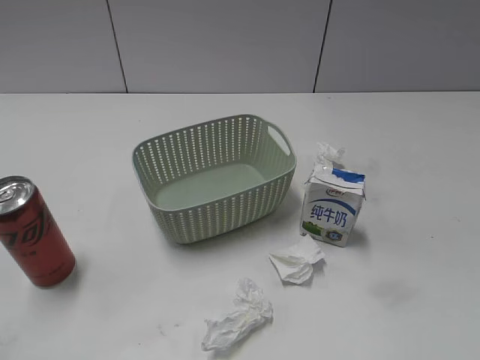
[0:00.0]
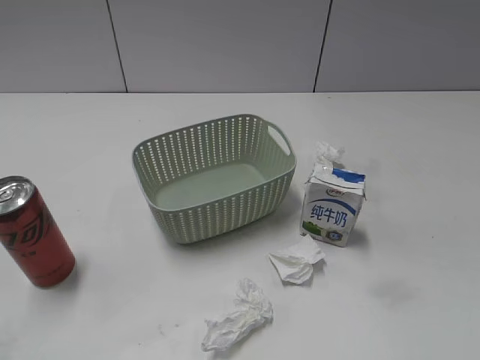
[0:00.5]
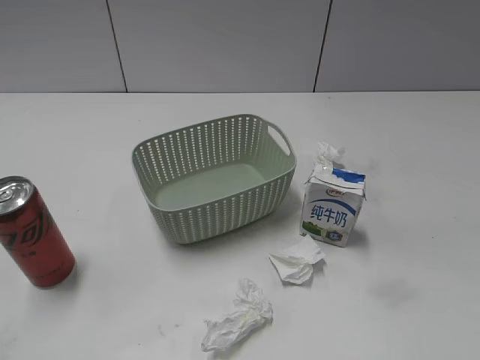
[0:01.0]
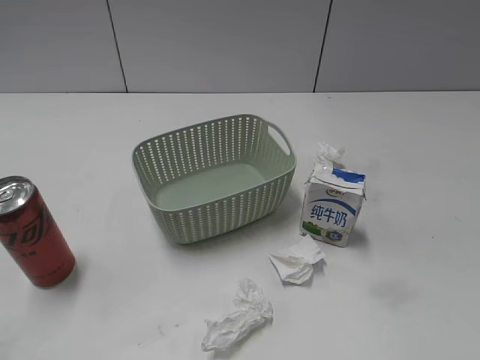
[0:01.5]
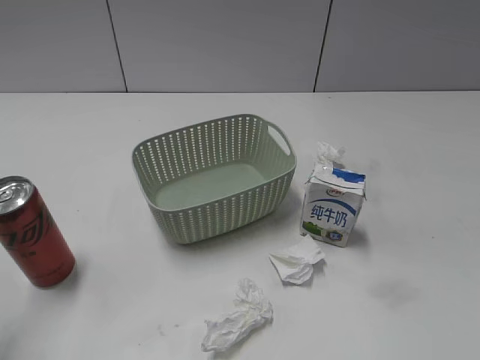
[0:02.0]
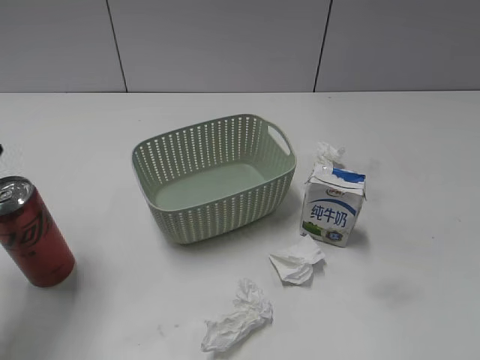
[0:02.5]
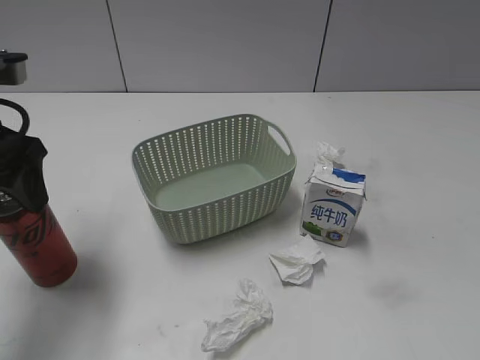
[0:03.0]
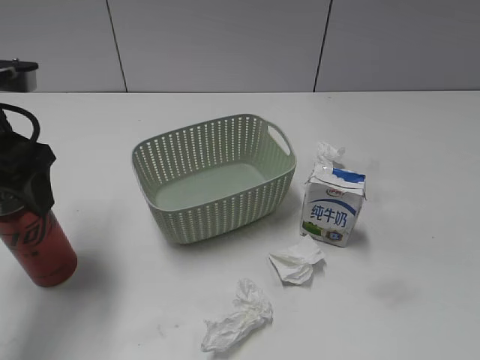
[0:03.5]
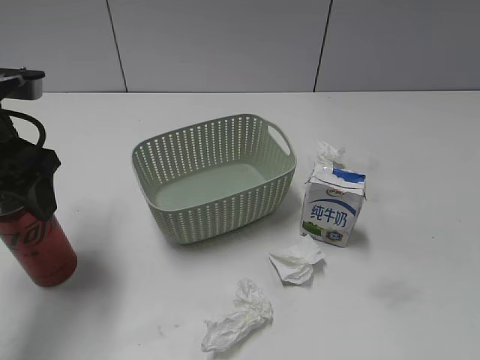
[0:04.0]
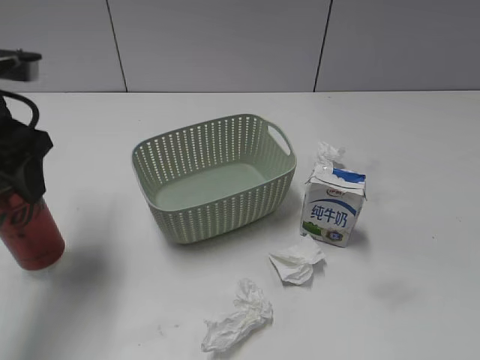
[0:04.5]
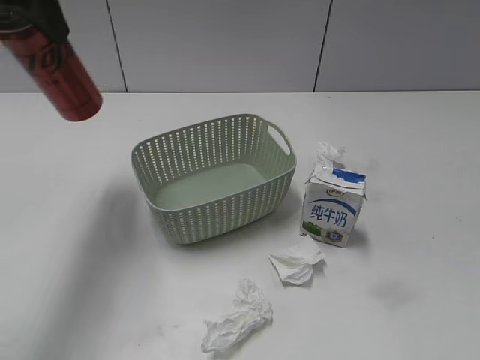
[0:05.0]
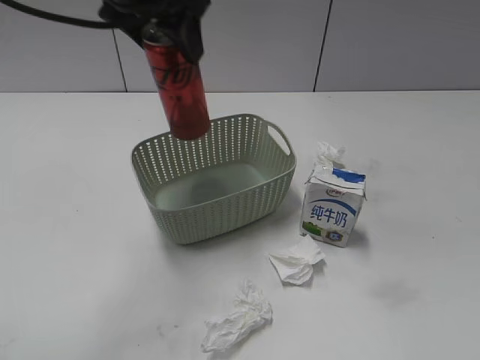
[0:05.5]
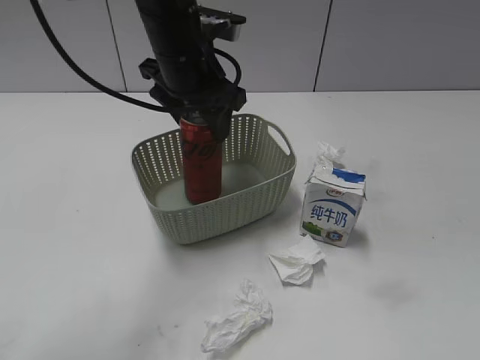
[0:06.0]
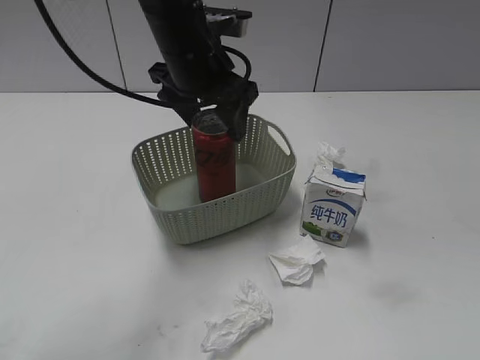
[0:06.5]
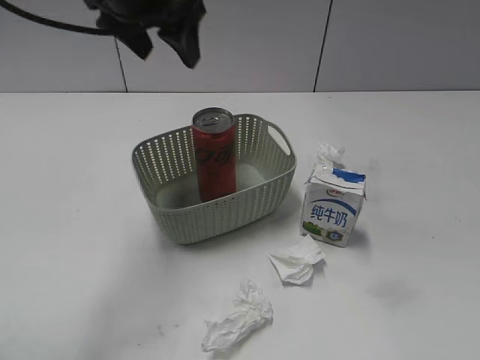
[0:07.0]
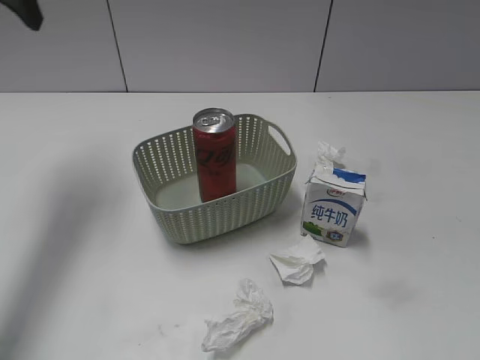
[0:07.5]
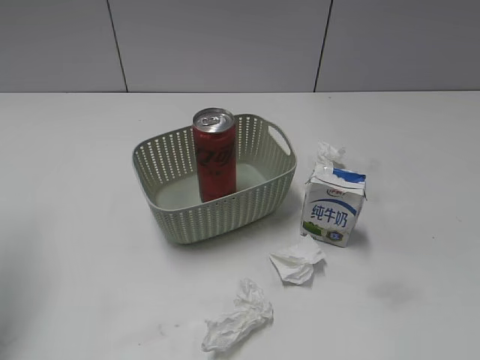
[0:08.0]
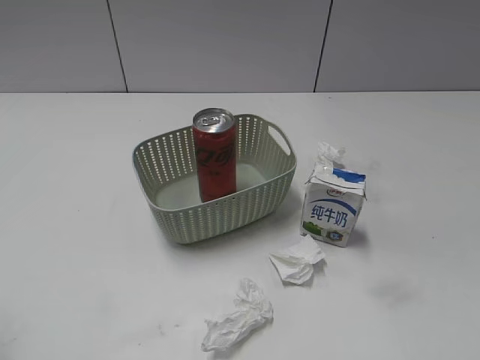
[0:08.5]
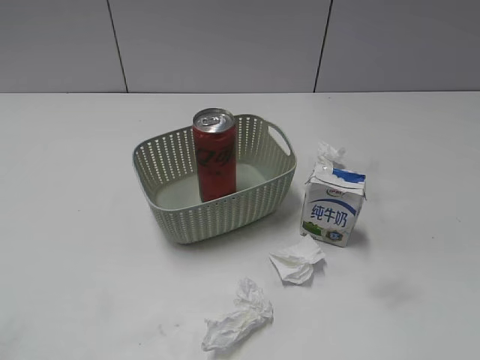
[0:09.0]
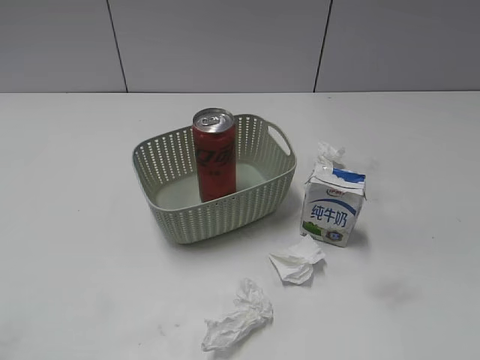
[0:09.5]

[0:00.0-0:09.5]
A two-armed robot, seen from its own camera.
Step, 0:03.0 to 0:04.0: Grasp the cola can with left gripper.
Step, 0:04.5 to 0:06.5: Place the cola can in the basket with left gripper.
0:02.0 to 0:04.0: The left gripper goes approximately 20 cm forward, downward and to the right.
0:04.0 to 0:05.5: The left gripper travels to the right, upward and forward by roughly 20 cm, and closes up.
0:05.5 to 0:07.5: The left gripper moves to the left, some 15 cm, and opens.
0:07.5 to 0:09.5: The left gripper is displaced backward by about 40 cm.
